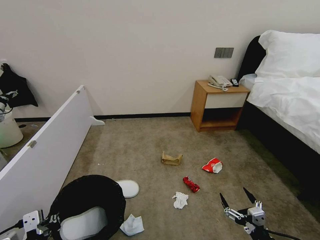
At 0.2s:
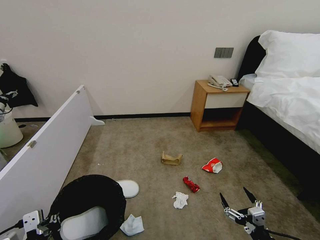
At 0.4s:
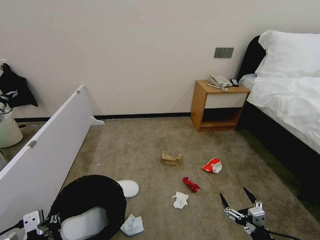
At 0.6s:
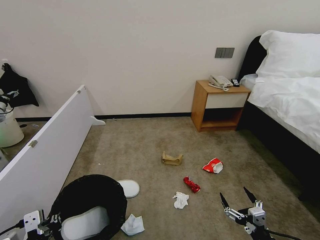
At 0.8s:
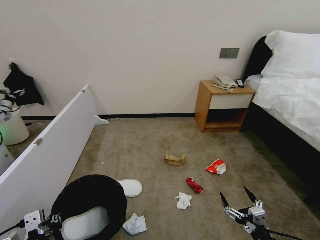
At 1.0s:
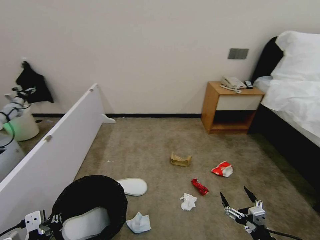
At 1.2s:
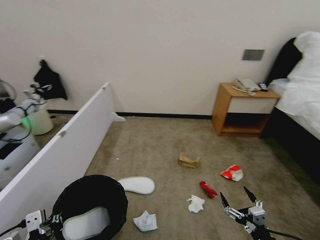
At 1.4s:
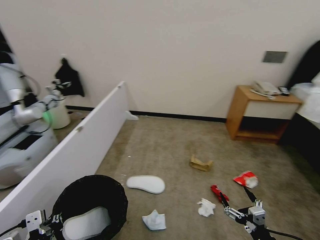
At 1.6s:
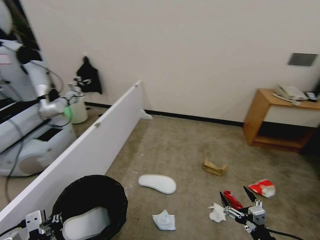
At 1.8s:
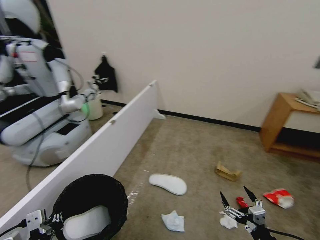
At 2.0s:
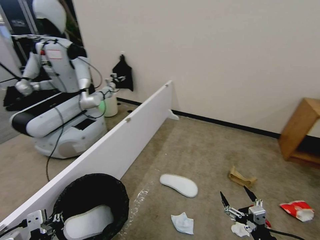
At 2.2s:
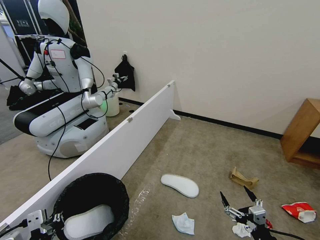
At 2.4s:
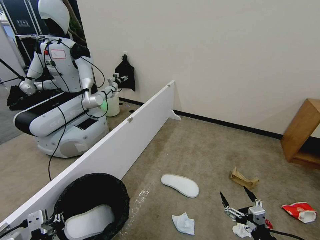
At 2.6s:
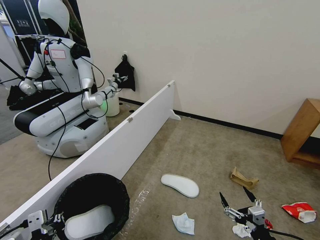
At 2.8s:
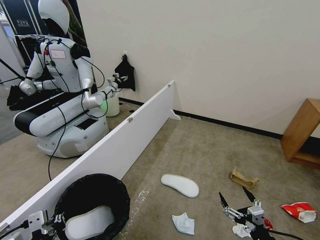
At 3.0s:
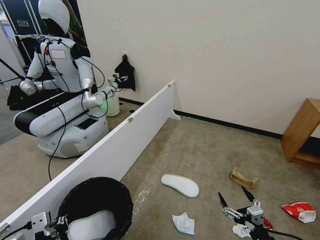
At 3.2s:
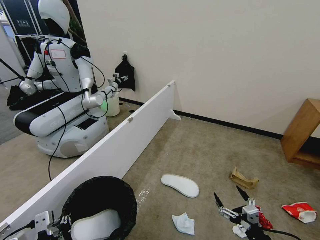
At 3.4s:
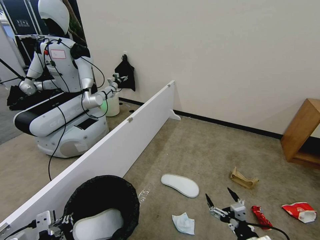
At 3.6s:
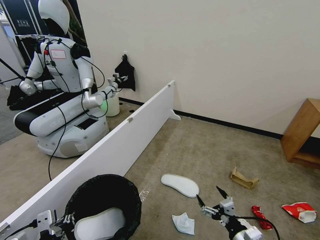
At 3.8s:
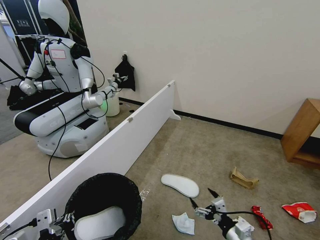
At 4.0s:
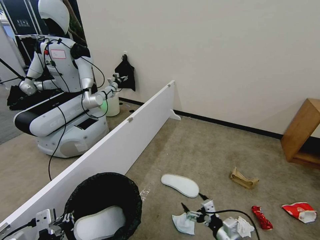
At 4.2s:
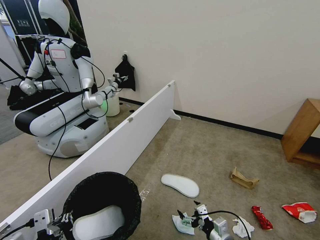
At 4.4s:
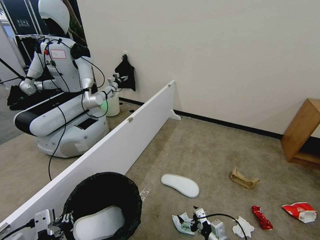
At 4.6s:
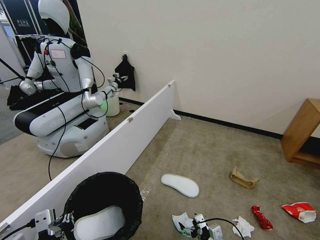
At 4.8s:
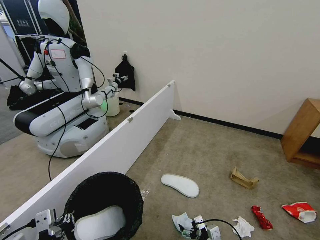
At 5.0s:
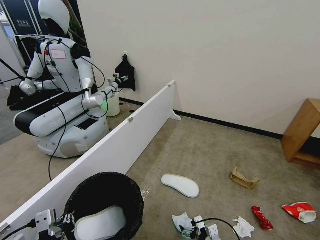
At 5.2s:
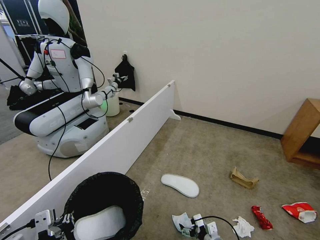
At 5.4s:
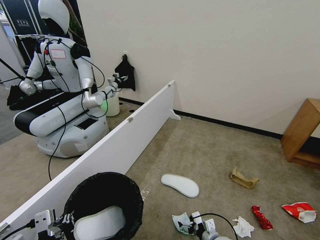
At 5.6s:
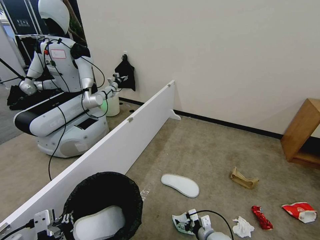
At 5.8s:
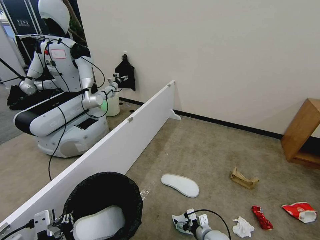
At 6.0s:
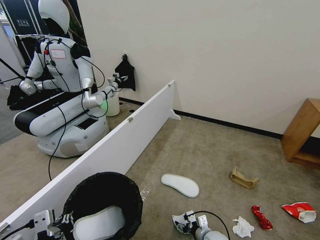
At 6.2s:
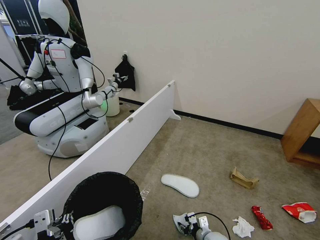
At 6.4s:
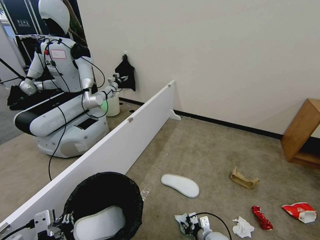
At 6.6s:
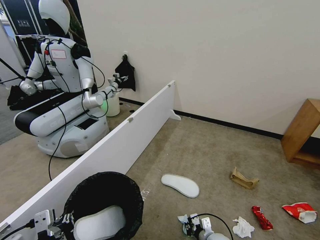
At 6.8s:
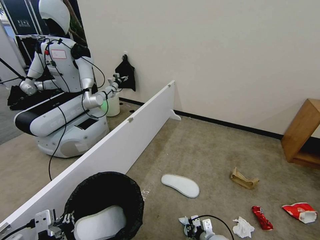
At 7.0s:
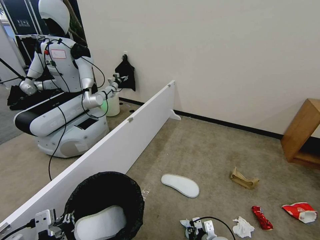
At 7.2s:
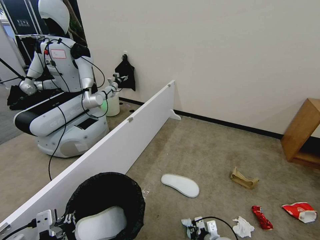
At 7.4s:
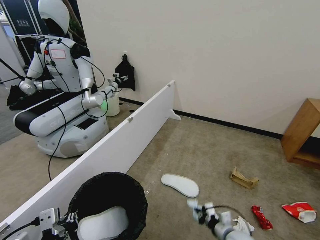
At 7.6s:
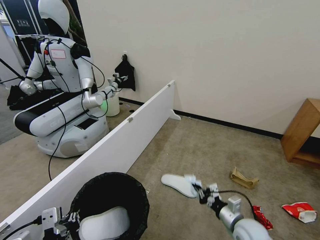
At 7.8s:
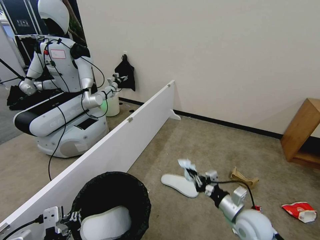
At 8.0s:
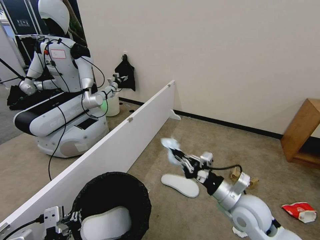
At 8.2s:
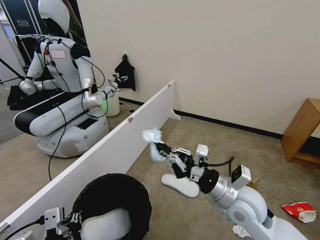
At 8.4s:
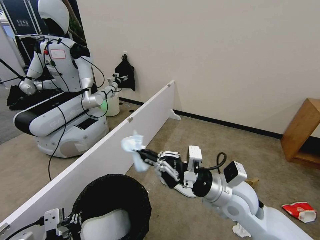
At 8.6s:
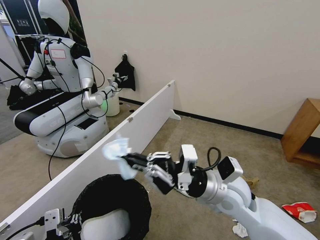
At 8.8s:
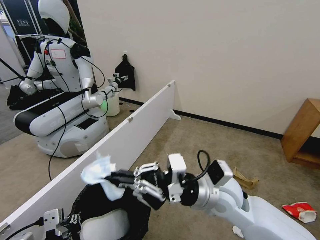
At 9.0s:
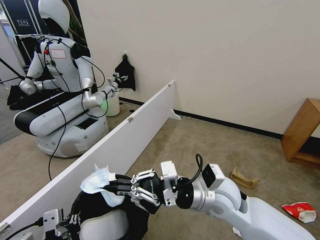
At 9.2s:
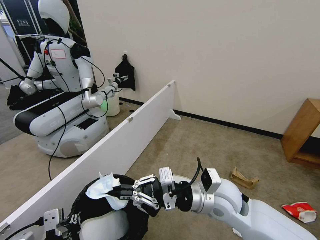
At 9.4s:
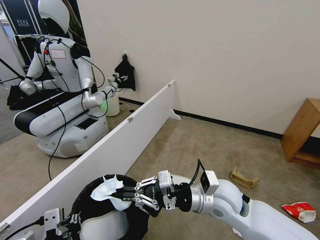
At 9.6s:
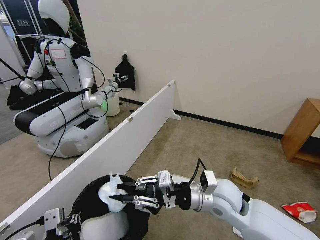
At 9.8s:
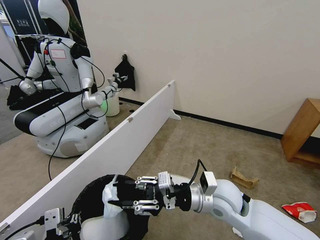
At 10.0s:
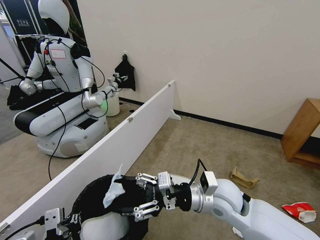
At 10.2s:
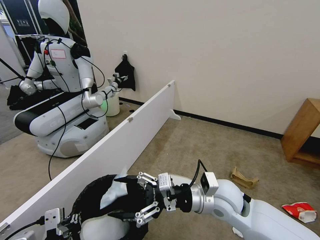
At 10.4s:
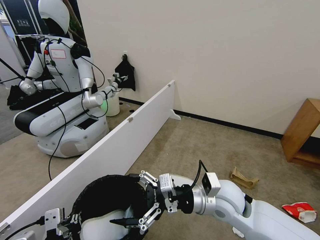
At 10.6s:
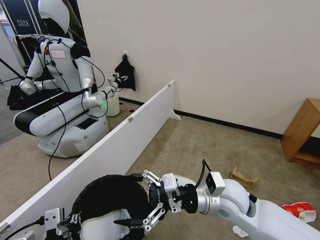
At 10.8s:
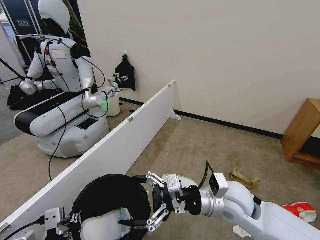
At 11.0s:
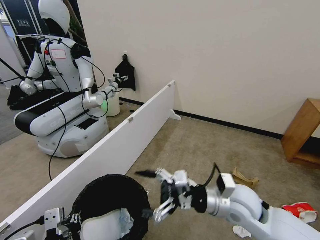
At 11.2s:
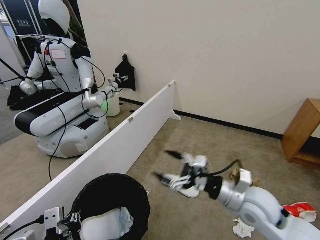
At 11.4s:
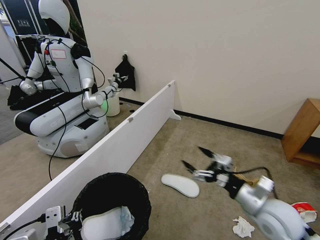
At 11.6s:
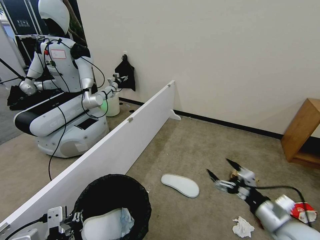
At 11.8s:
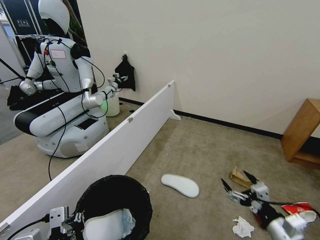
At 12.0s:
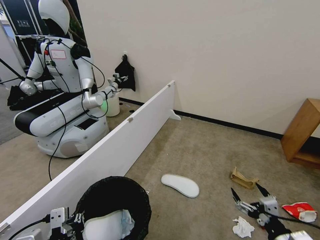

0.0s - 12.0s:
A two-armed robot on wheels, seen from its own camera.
Task of the whole recording: Pick up the trash bin, then pick up the garbage from the floor and place it into the trash bin.
3.0s - 4.4s: The right gripper goes roughly 15 cm to the left, downward and forward.
4.4s - 6.0s: The right gripper shifts approximately 10 cm downward and forward.
6.0s - 7.6s: The right gripper goes approximately 15 cm upward and to the right, and closes up.
7.6s - 9.0s: The right gripper is displaced upward and to the left by roughly 25 cm.
9.0s - 10.4s: The right gripper opens up.
10.4s - 12.0s: The right gripper goes approximately 25 cm to the right, backward and downward.

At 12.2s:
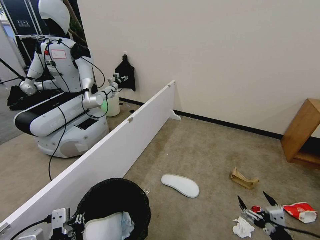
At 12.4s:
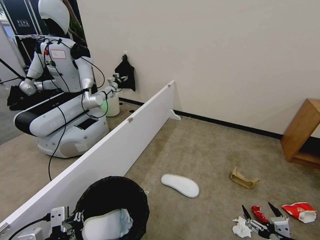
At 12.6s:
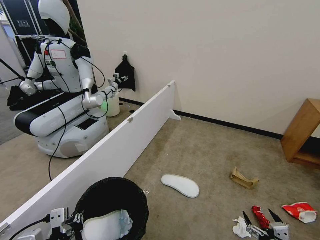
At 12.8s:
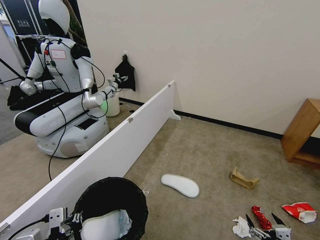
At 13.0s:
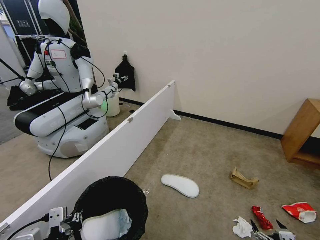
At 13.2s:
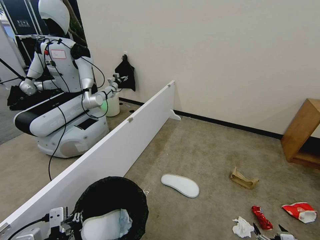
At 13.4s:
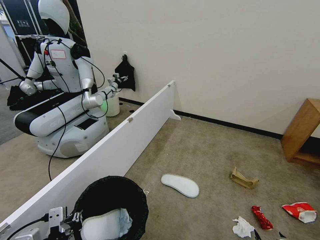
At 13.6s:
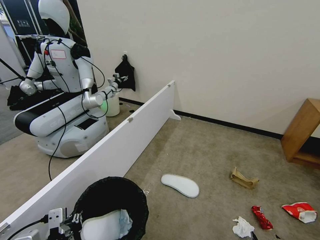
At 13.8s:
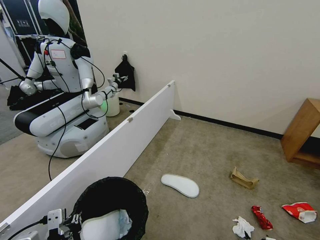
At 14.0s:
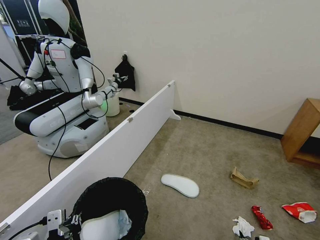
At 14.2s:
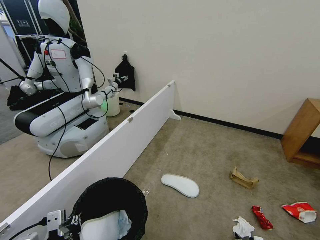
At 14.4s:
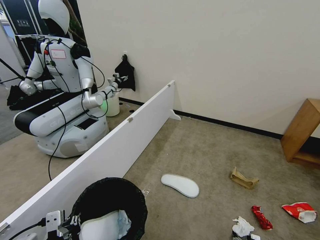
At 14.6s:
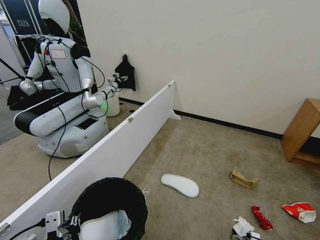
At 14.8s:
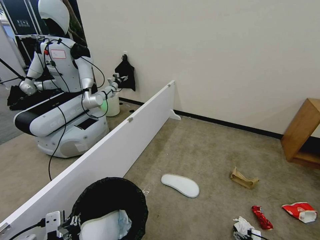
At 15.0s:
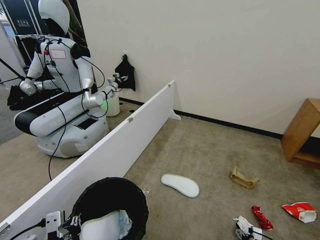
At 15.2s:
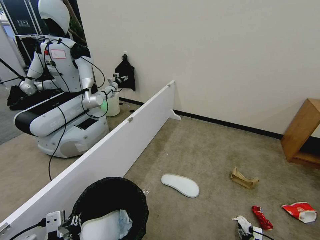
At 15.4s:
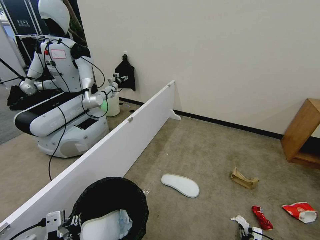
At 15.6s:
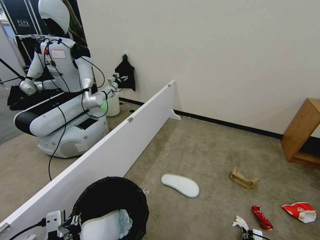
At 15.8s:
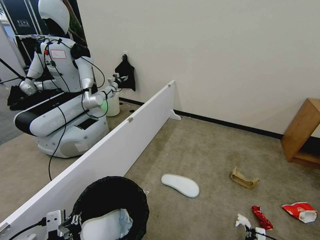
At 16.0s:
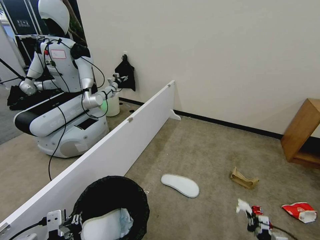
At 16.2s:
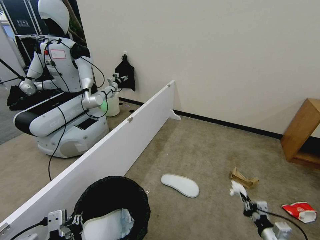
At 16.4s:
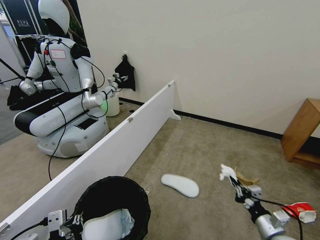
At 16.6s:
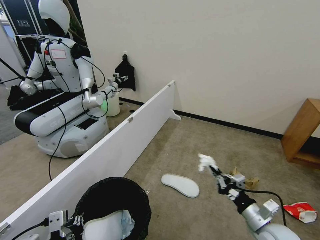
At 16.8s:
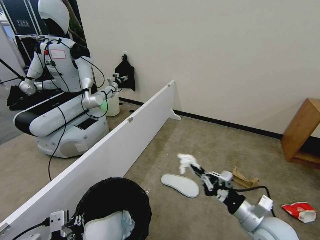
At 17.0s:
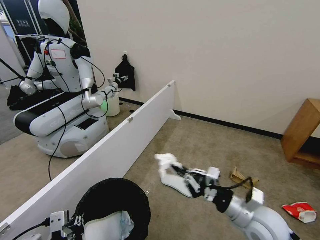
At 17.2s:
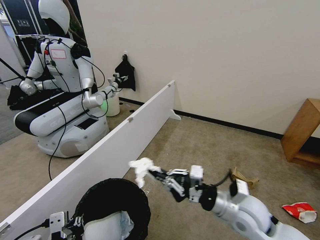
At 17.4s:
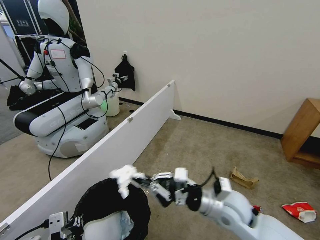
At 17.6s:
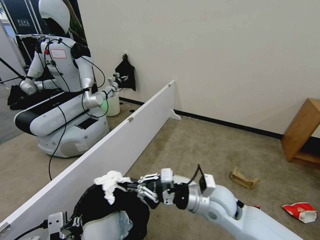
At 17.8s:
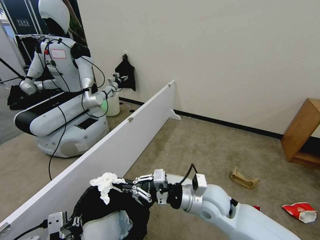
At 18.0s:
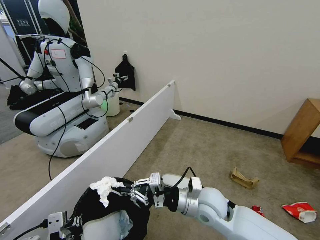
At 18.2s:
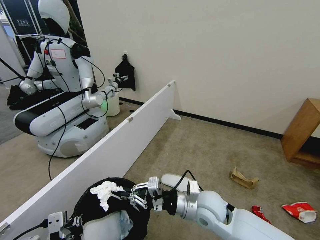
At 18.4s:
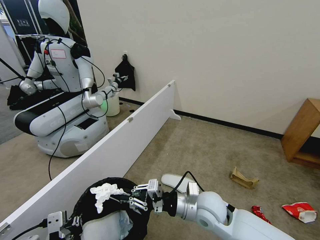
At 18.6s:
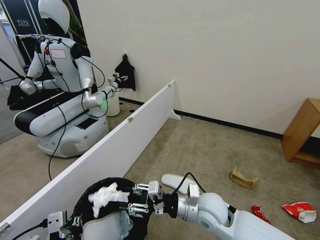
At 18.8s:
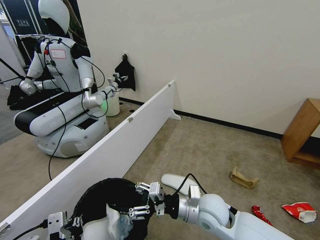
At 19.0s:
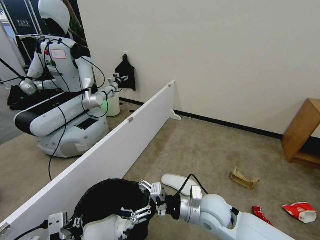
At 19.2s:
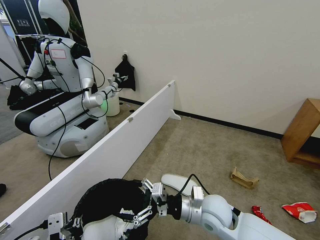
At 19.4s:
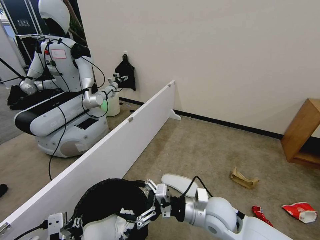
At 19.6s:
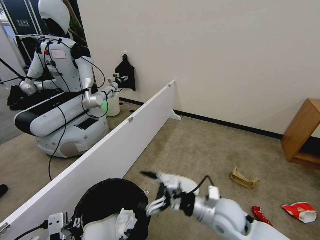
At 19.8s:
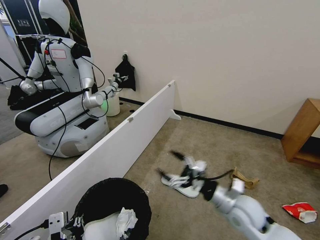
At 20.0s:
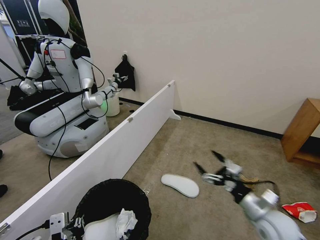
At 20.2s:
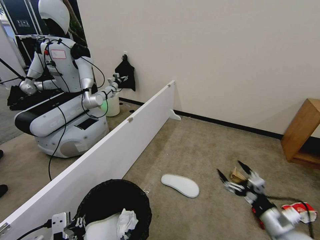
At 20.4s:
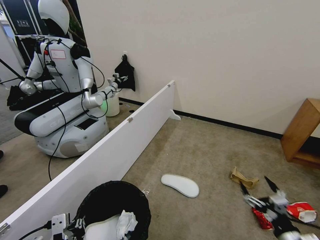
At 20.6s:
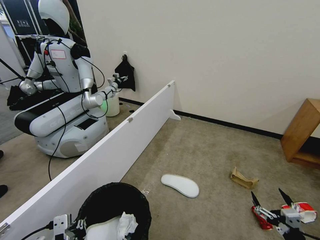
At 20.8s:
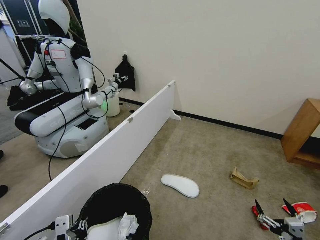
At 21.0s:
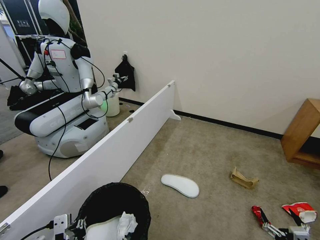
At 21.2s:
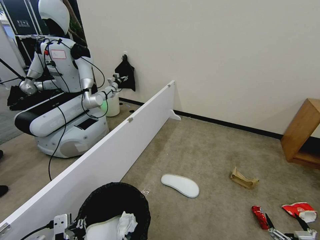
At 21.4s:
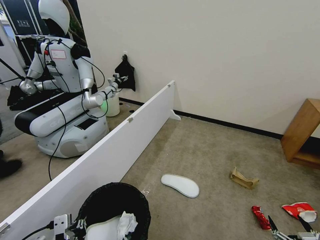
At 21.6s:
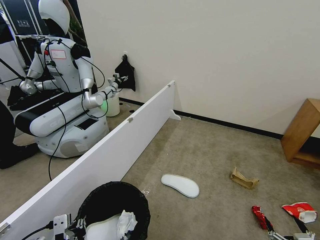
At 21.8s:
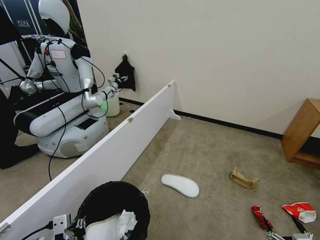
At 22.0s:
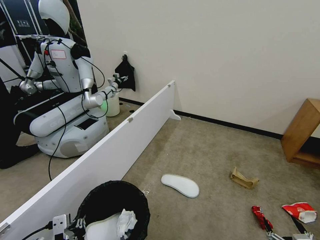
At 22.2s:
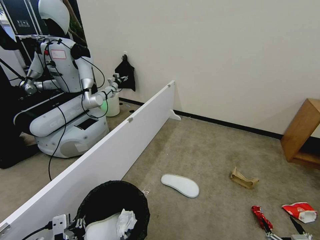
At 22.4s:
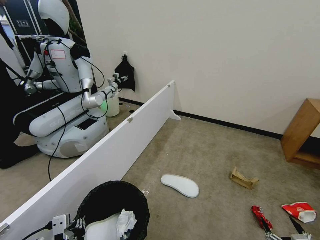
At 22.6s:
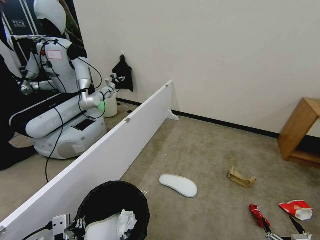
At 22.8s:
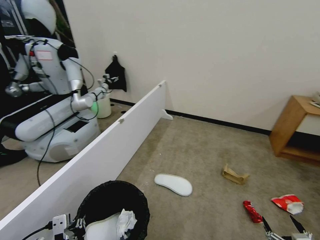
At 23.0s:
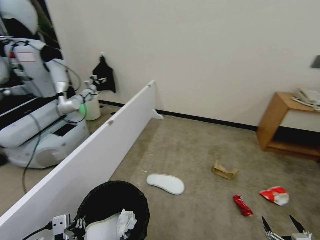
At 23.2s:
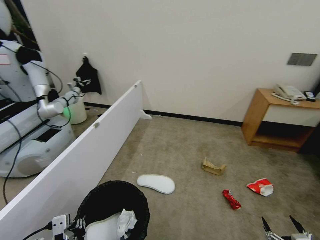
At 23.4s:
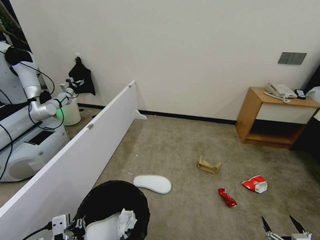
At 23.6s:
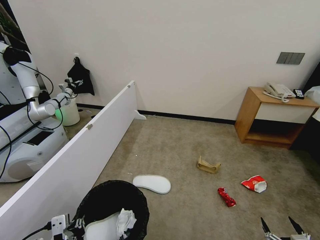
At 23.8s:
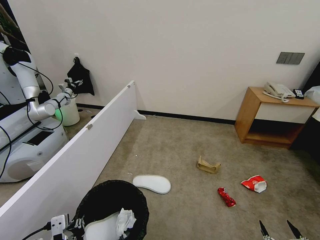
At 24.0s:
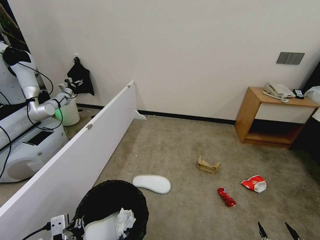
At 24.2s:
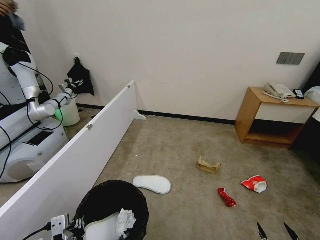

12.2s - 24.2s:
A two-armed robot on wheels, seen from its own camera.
Task of the whole recording: Pick up the trash bin, then pick up the garbage from the floor and place it into the trash bin.
12.2s - 13.8s: The right gripper goes about 20 cm downward.
15.2s - 16.6s: The right gripper goes approximately 25 cm upward, and closes its fingers.
16.6s - 18.2s: The right gripper moves to the left, about 20 cm.
18.2s - 19.8s: The right gripper moves to the right, about 10 cm, and opens up.
19.8s - 21.2s: The right gripper travels backward, to the right and downward by roughly 30 cm.
21.2s - 22.6s: The grippers make only small movements.
